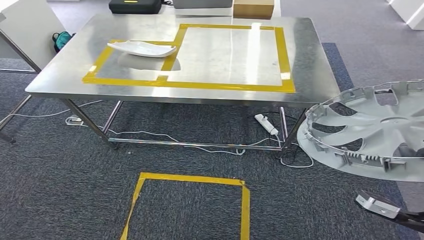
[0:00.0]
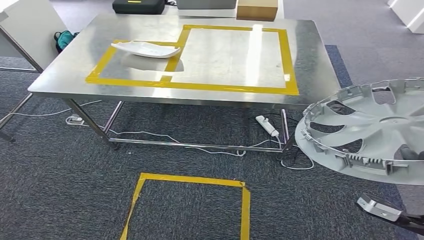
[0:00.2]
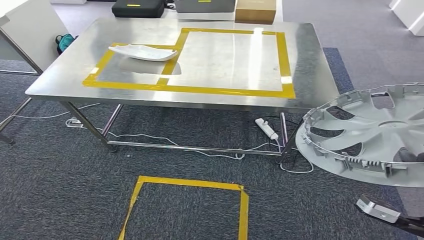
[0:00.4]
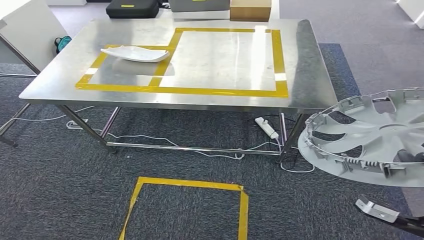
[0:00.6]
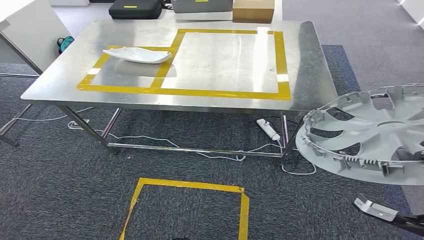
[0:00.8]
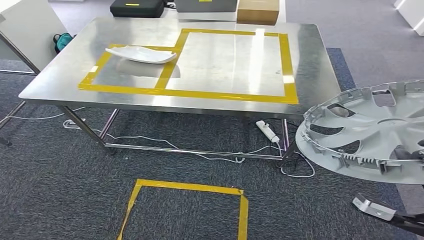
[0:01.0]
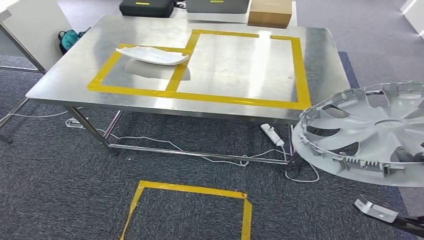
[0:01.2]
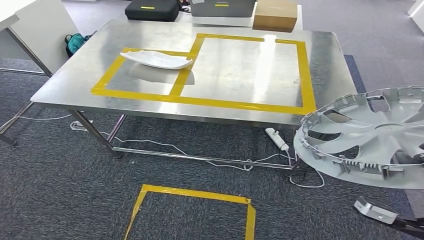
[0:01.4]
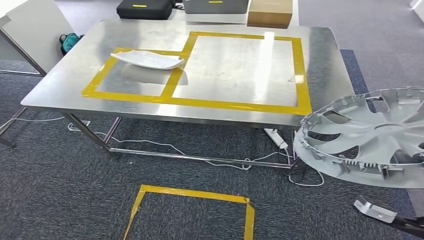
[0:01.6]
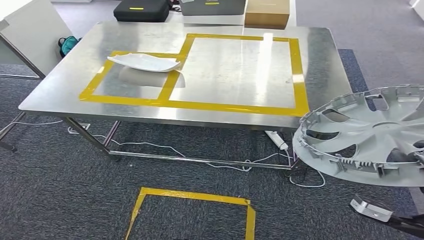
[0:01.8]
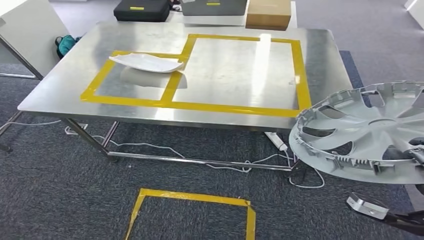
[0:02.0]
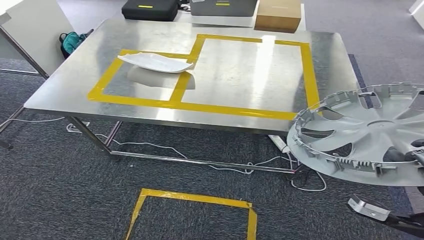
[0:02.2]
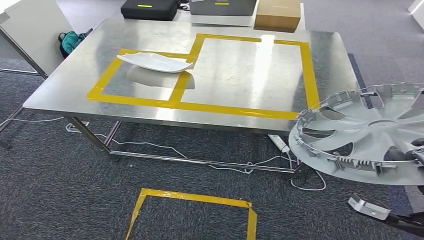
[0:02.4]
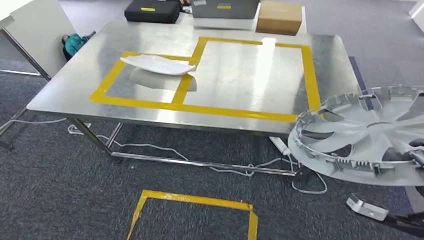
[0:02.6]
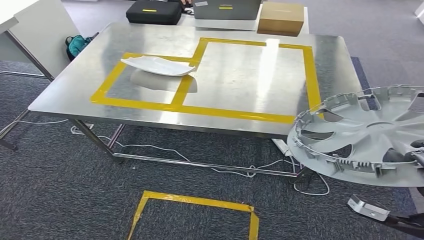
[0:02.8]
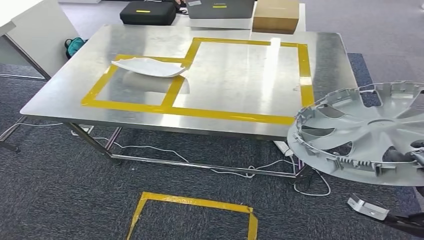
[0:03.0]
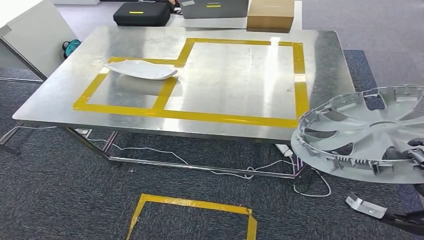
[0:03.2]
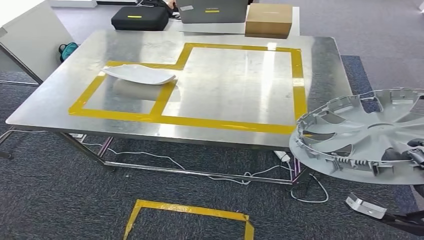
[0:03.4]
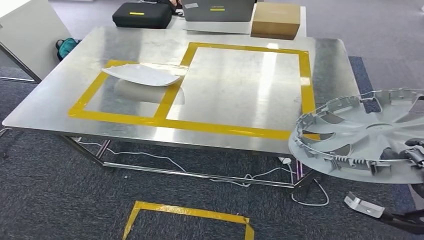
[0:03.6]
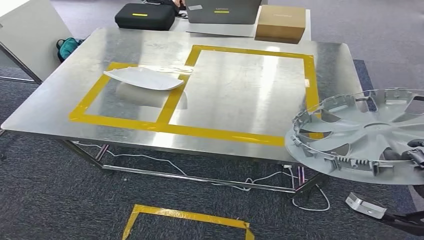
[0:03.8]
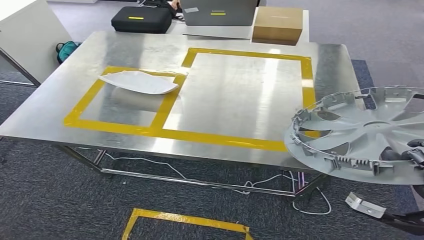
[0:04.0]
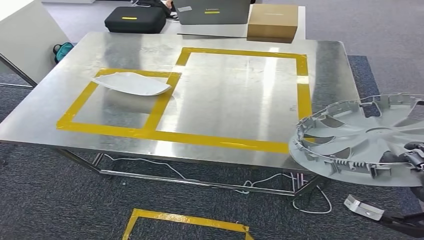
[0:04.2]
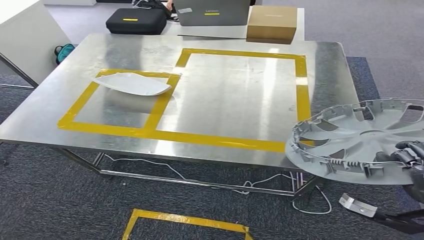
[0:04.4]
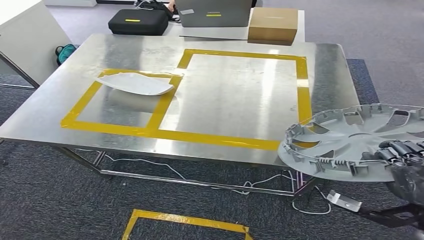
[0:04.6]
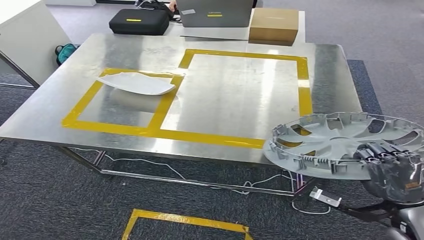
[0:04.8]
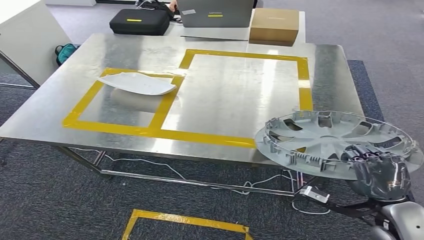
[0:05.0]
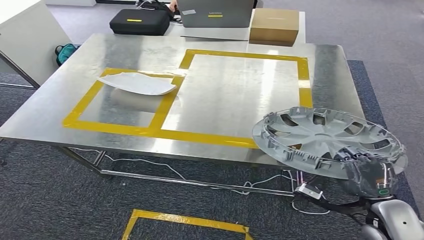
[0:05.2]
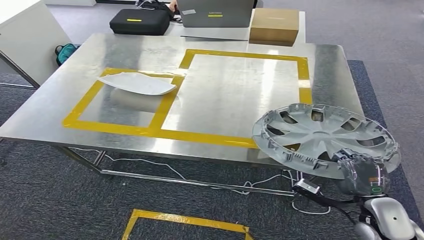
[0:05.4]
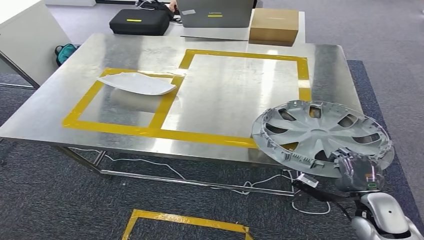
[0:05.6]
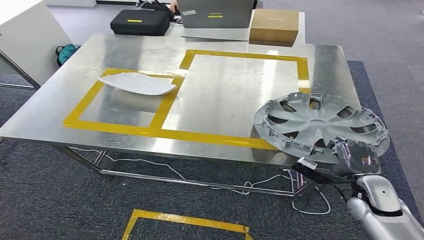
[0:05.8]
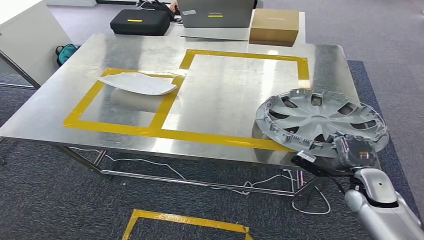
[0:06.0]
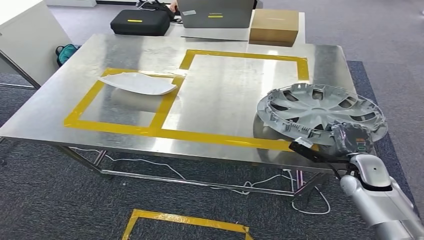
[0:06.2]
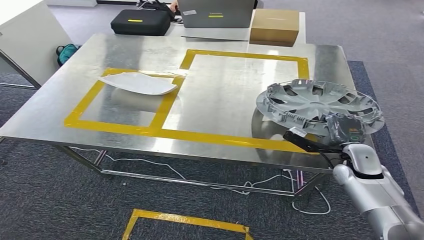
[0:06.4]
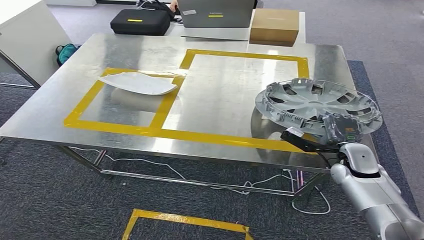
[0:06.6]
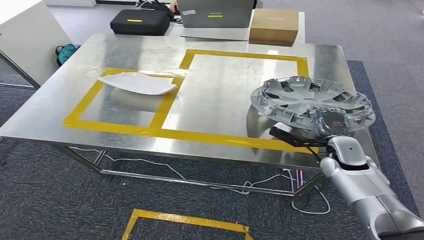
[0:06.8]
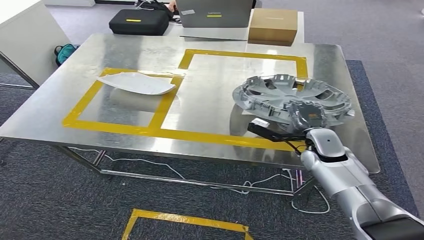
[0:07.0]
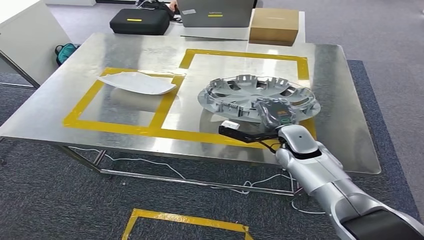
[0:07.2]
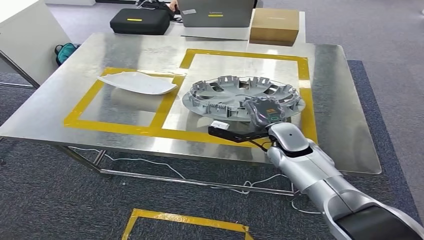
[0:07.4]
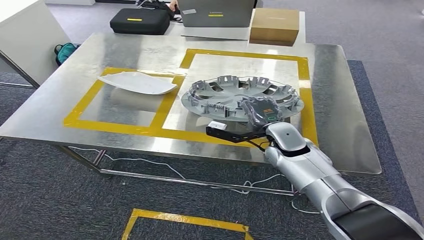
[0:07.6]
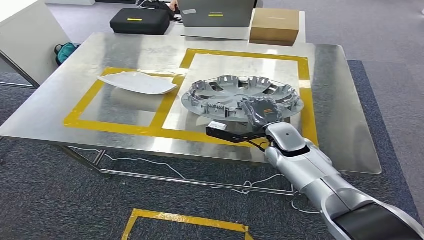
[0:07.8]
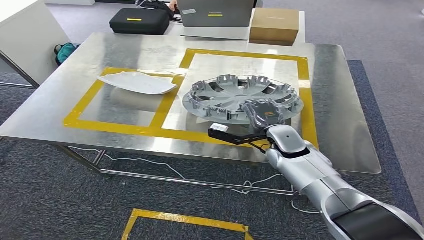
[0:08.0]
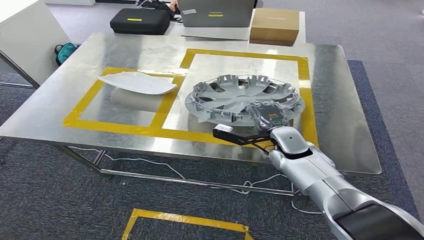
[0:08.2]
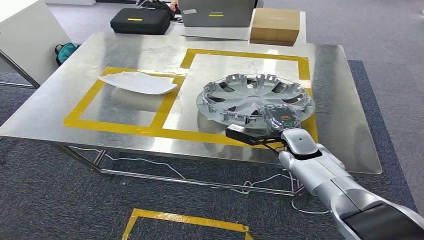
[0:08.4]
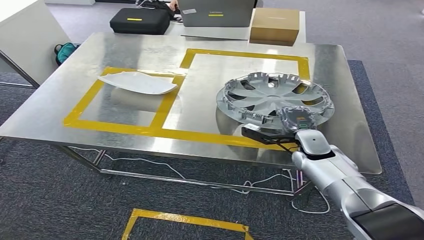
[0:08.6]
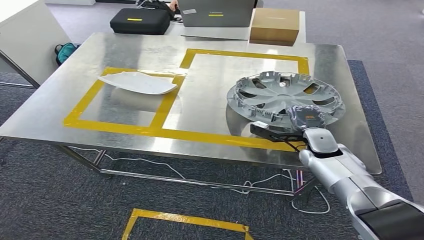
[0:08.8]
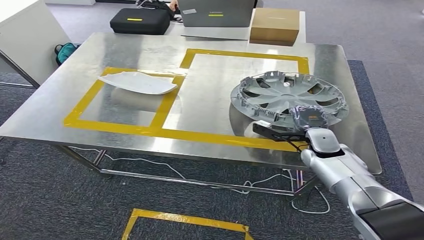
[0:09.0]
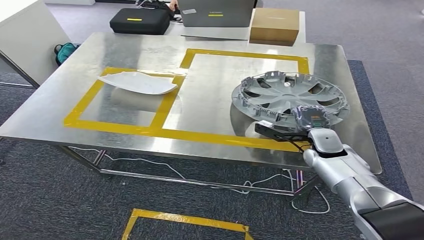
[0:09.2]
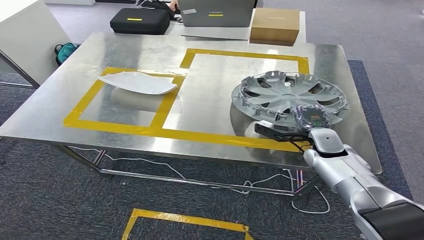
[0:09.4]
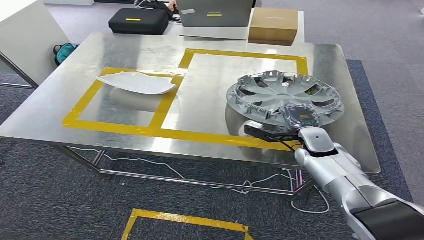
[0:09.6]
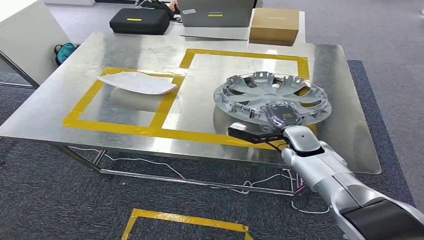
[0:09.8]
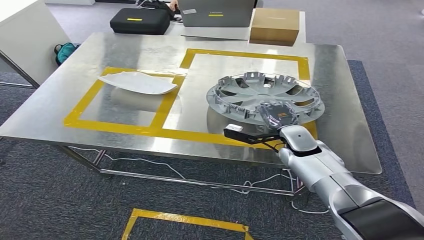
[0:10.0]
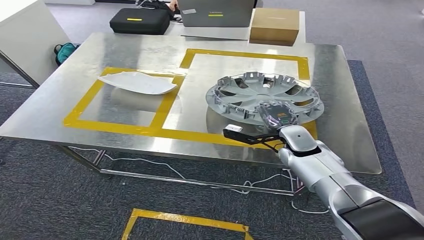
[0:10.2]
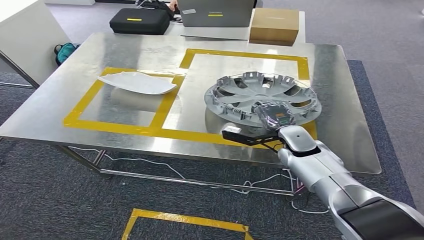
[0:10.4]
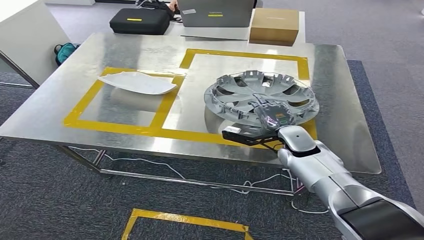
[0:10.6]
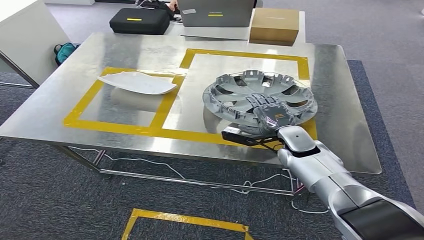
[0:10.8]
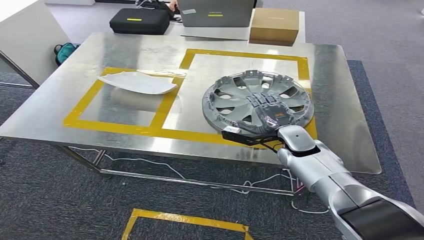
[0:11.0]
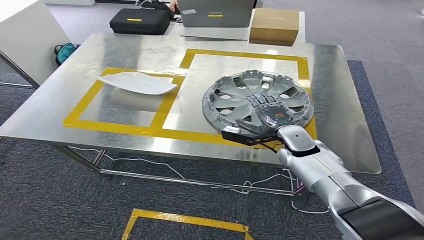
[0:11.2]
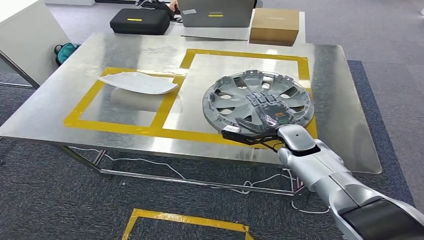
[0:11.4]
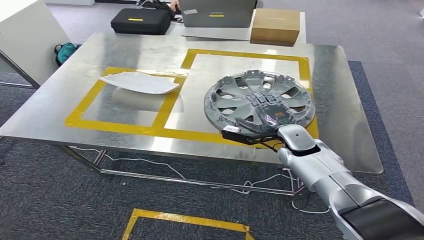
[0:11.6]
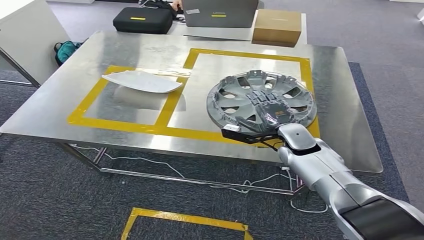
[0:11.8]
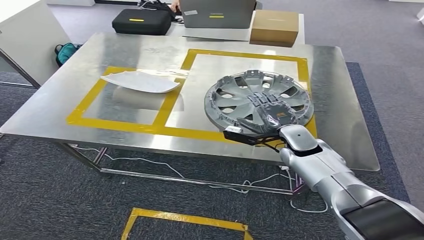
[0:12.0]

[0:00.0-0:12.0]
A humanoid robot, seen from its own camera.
Step, 0:00.0 to 0:05.4: Move the small component to the workbench.
0:06.0 to 0:07.6: The right hand shifts about 25 cm to the left, forward and upward.
0:07.6 to 0:09.0: The right hand moves to the right, about 10 cm.
0:09.0 to 0:10.4: The right hand goes roughly 5 cm to the left.
0:10.4 to 0:12.0: Both hands stay put.

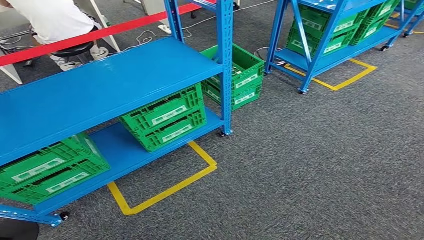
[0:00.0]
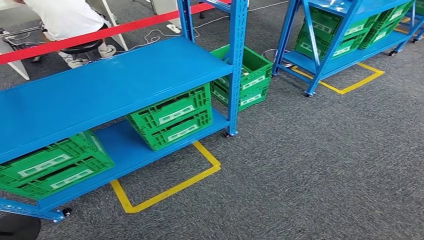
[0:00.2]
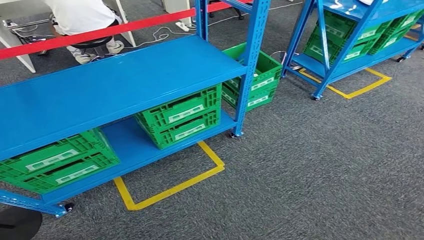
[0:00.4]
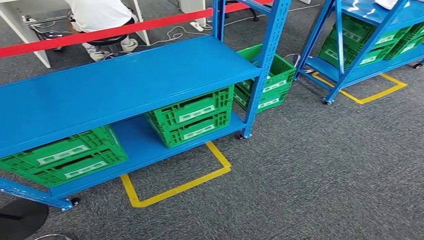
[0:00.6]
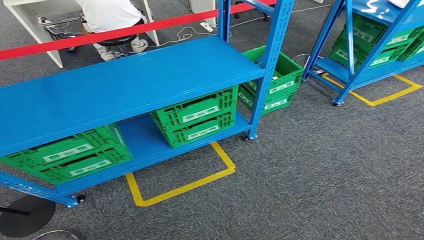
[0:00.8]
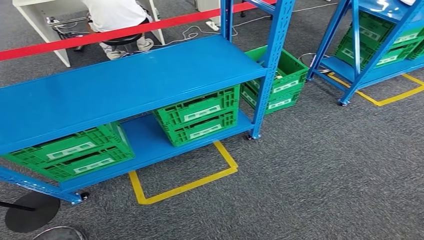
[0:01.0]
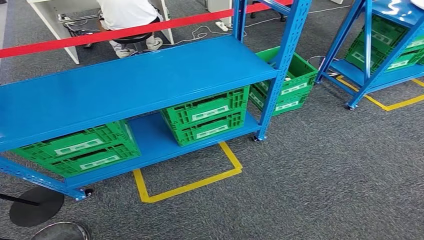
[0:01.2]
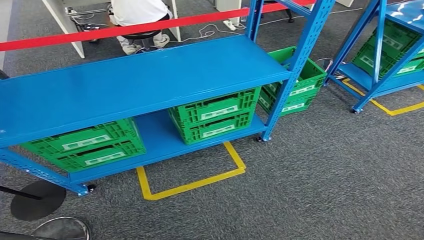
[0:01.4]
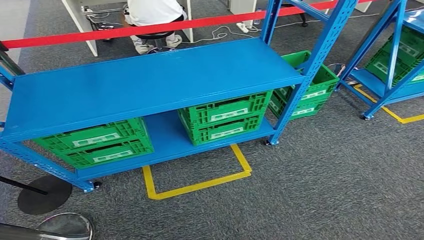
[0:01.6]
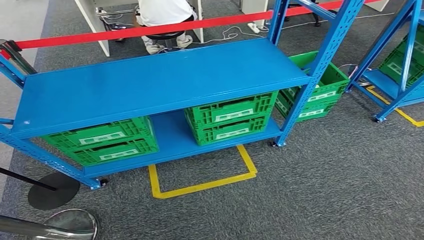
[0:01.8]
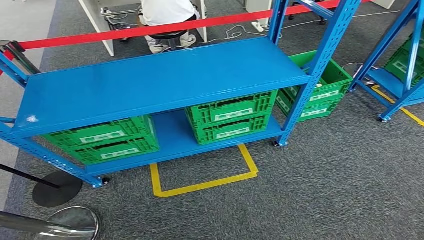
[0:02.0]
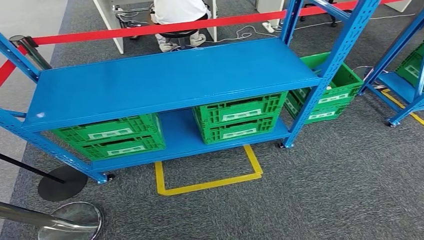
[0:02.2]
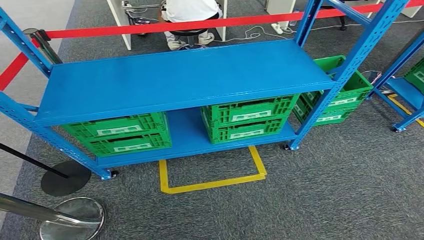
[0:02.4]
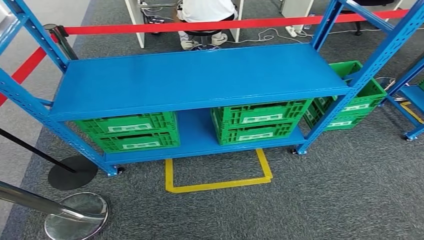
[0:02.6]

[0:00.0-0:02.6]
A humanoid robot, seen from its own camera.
Step, 0:00.0 to 0:02.6: Return to the initial position at the workbench.
